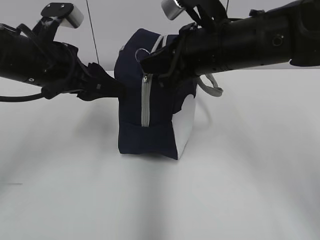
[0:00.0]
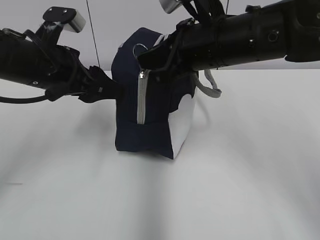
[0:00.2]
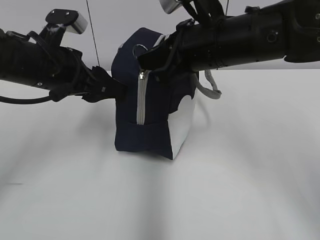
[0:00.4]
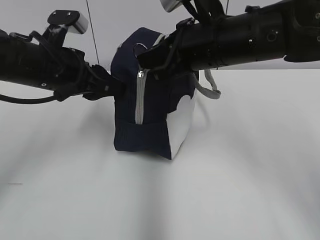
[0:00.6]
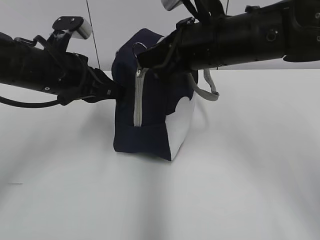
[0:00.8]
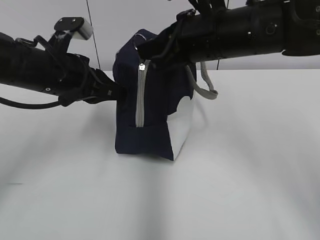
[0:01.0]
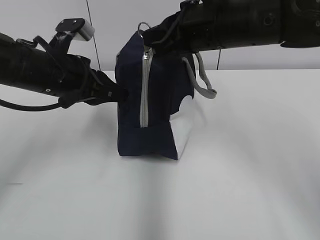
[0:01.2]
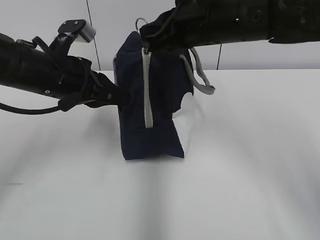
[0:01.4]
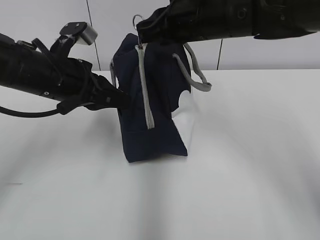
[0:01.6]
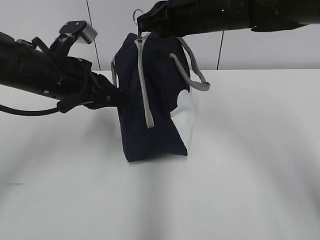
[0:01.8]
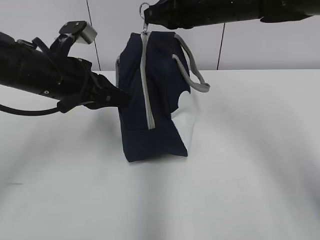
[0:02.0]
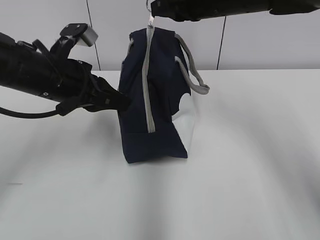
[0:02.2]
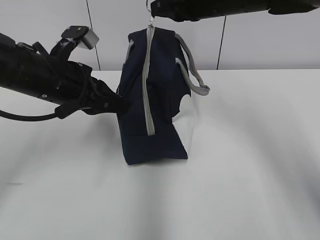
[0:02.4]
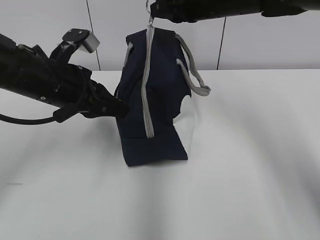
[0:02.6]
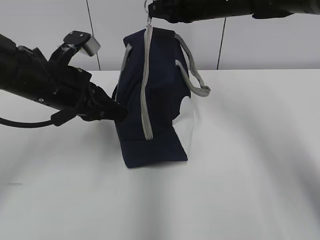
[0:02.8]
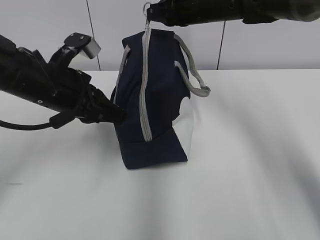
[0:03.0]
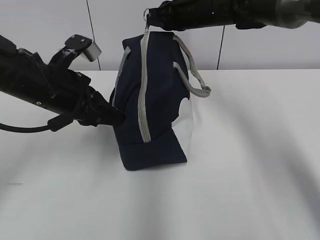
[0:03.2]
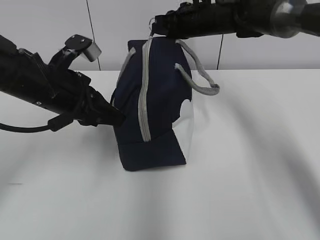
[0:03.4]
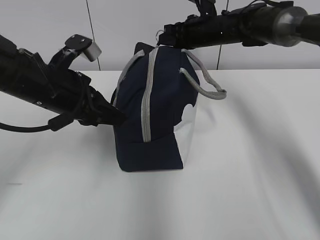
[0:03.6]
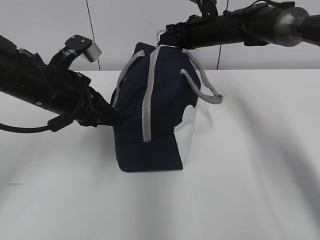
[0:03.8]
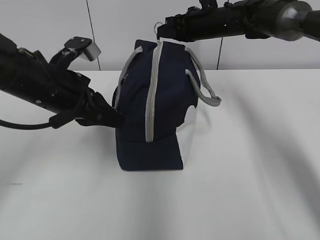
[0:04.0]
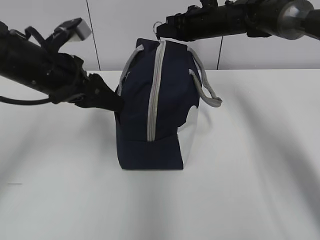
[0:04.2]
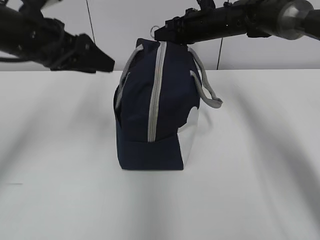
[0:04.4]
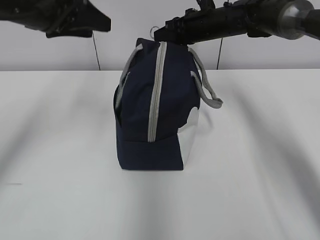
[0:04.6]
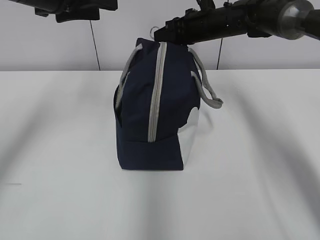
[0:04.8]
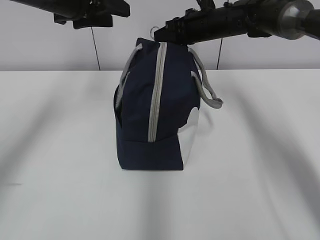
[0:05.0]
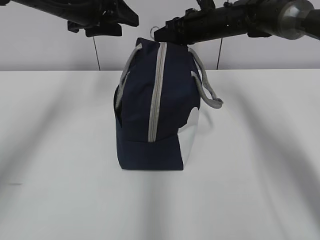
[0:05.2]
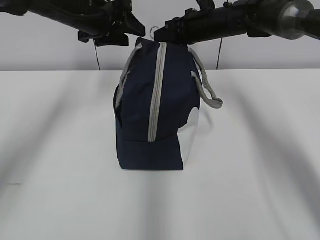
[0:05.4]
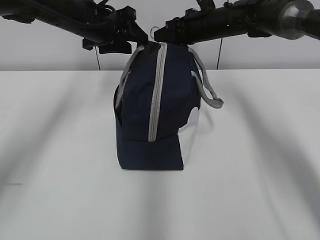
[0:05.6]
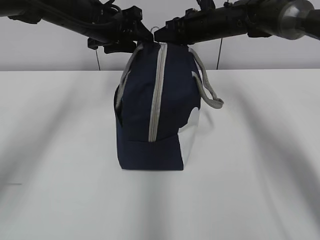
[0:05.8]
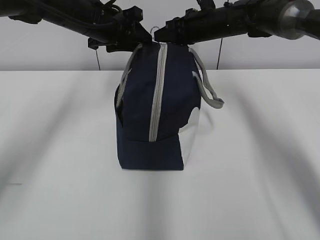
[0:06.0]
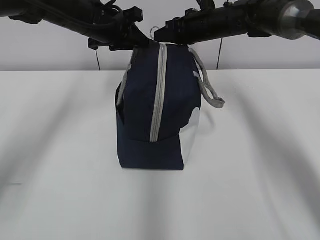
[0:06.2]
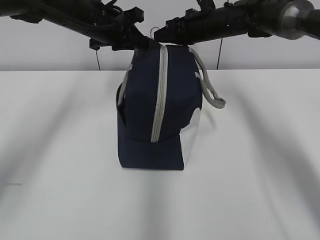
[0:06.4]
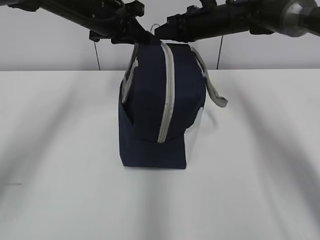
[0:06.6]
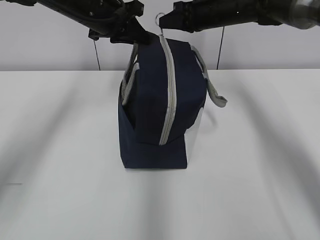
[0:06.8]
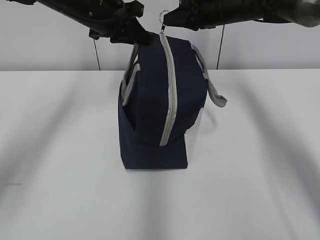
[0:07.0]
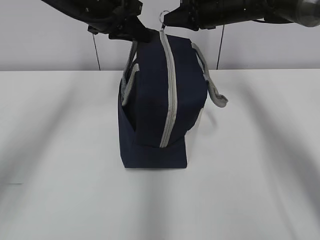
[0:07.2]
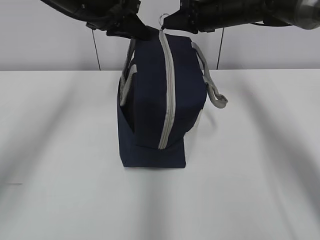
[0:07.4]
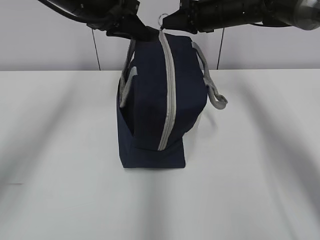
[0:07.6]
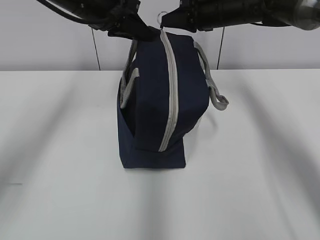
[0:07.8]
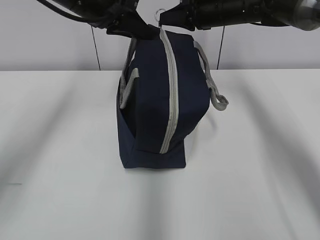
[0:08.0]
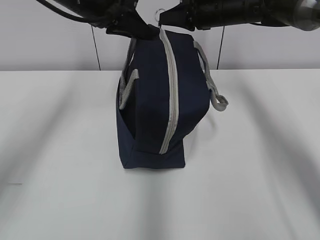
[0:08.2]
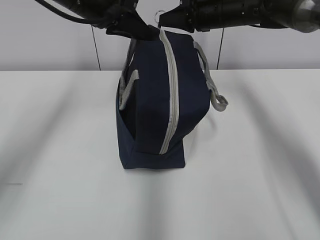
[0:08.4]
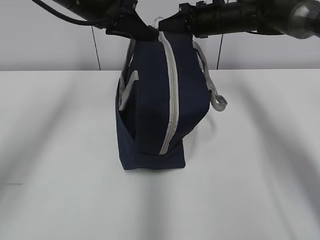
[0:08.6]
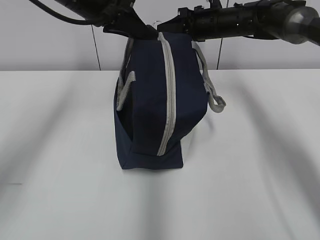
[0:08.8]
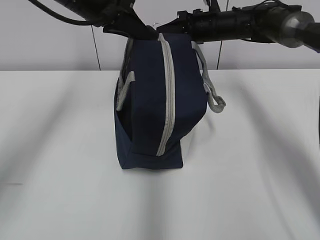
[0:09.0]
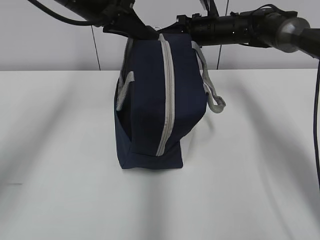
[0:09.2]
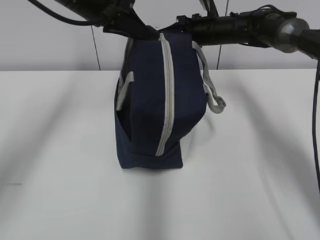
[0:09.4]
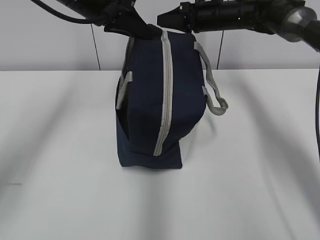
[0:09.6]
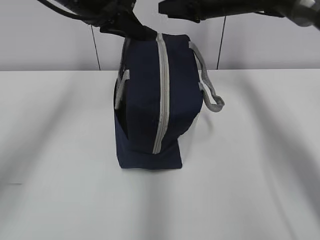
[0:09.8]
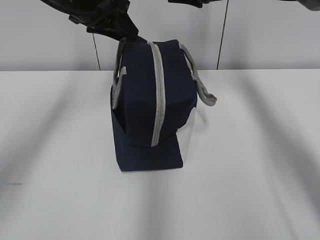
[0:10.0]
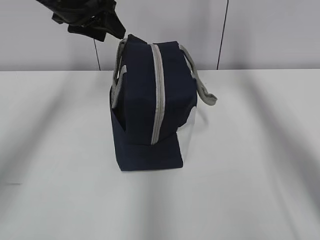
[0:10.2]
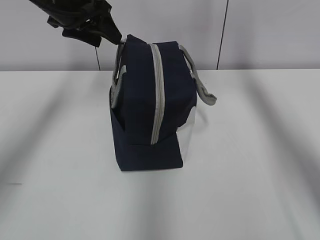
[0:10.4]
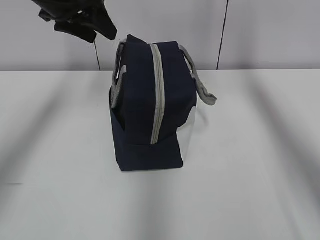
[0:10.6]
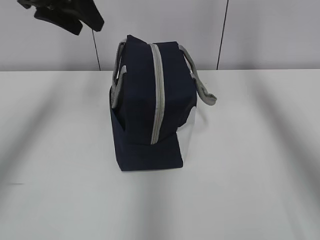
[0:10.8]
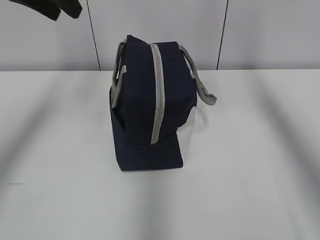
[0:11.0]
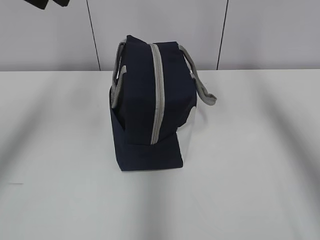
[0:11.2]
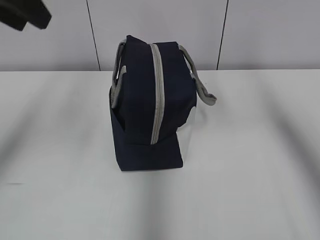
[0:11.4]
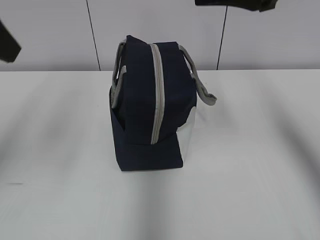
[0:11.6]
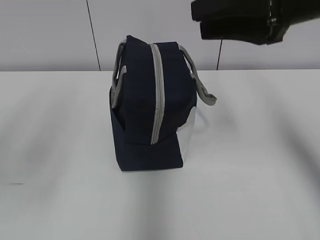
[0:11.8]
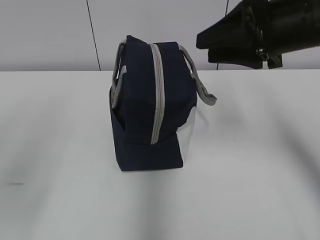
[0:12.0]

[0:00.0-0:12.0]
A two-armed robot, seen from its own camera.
0:00.0 to 0:01.6: The right gripper goes approximately 5 cm forward. The left gripper closes its fingers.
0:01.6 to 0:03.0: The right gripper goes roughly 10 cm forward.
0:03.0 to 0:04.4: The right gripper goes about 5 cm downward. The left gripper moves upward, roughly 5 cm, and opens its fingers.
0:04.4 to 0:06.0: The left gripper heads forward and to the right, covering approximately 15 cm.
0:06.0 to 0:07.6: The left gripper closes its fingers.
0:07.6 to 0:09.0: There are only small adjustments of the grippers.
0:09.0 to 0:10.4: The right gripper shifts approximately 15 cm upward, and opens up; the left gripper ends up approximately 5 cm from where it was, and opens up.
0:10.4 to 0:12.0: The left gripper heads backward, covering approximately 30 cm, while the right gripper travels backward by approximately 15 cm.

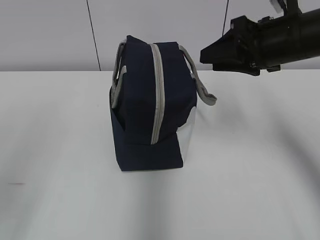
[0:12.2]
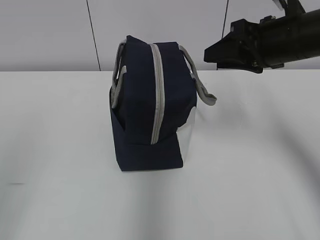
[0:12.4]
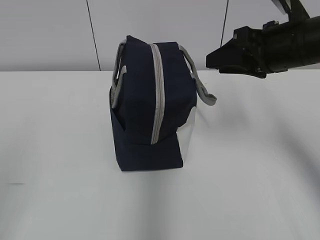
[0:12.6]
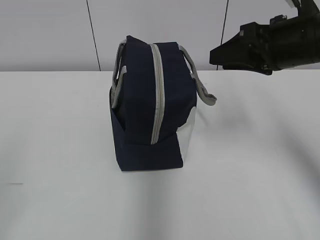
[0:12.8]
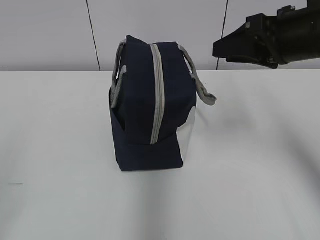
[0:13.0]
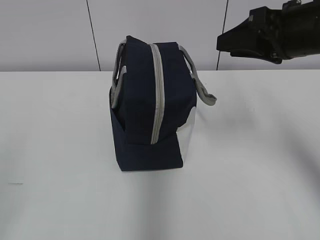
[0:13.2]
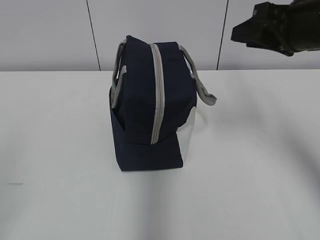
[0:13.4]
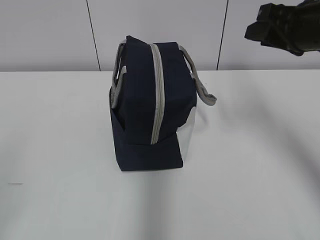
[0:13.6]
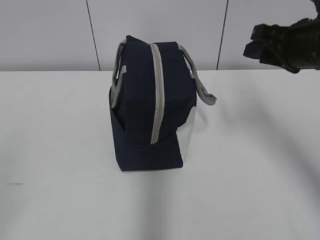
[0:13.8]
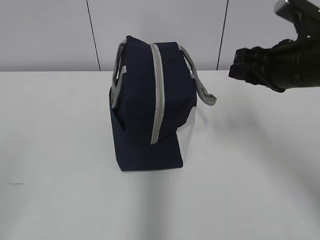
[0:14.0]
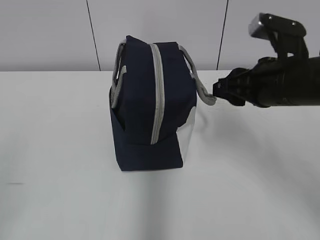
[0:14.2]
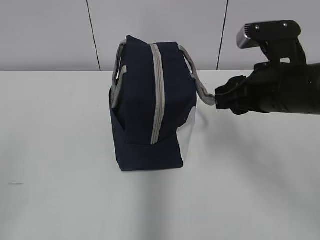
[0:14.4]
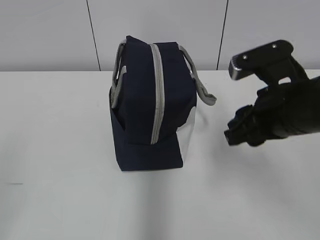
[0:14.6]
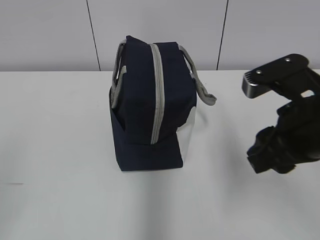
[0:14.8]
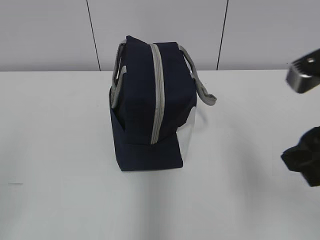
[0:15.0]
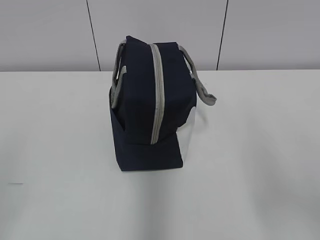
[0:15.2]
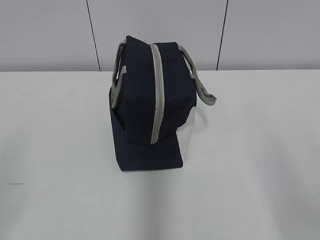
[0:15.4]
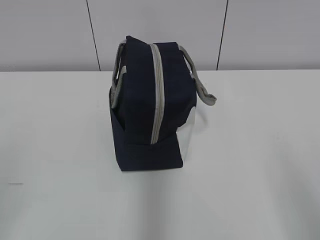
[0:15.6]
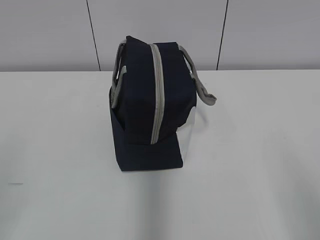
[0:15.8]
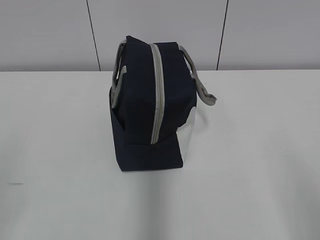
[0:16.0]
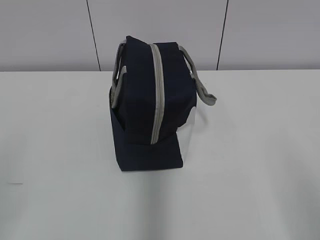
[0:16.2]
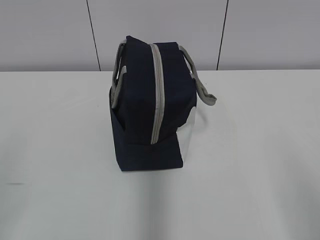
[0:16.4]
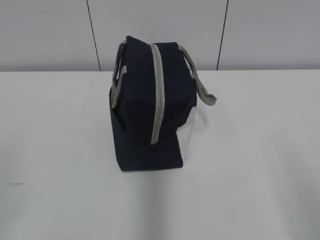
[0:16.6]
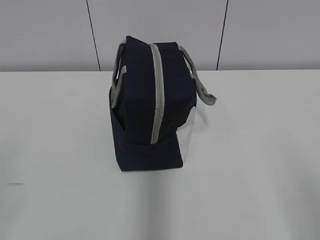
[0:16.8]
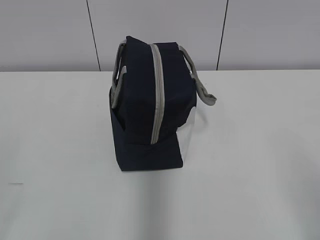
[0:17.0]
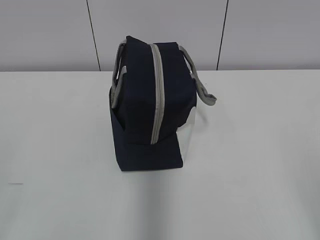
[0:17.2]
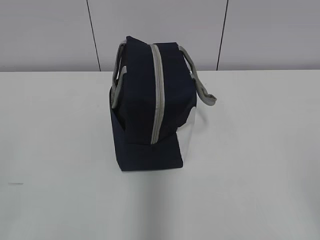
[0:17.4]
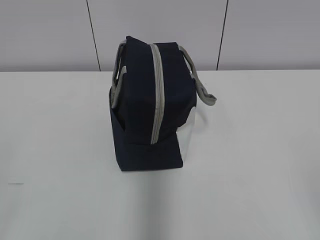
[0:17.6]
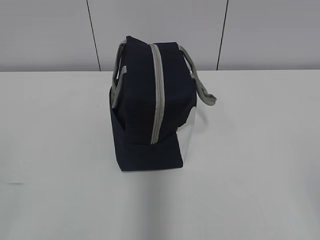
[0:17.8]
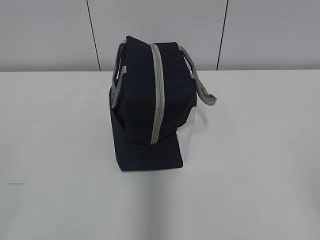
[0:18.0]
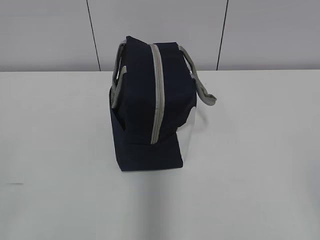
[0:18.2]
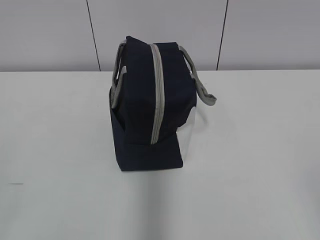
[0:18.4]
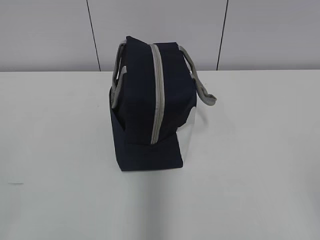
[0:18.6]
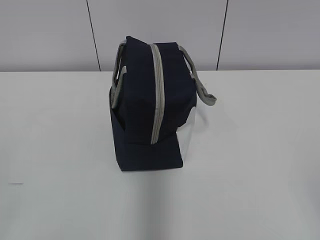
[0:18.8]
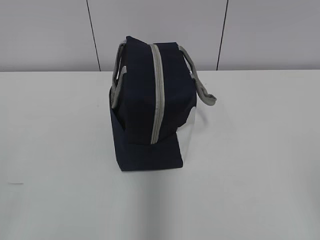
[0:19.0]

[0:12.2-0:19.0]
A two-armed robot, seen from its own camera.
0:13.6 to 0:15.0: The right gripper heads backward, covering about 15 cm.
0:15.0 to 0:16.2: The right gripper moves backward and to the right, about 15 cm.
0:17.6 to 0:19.0: Both grippers stay about where they are.
